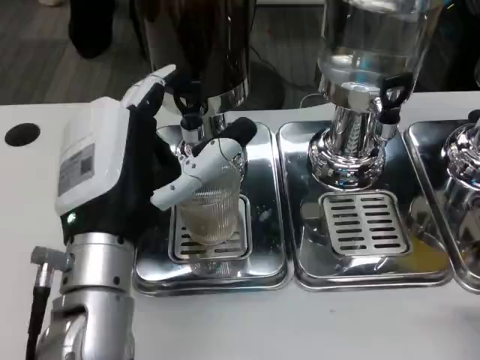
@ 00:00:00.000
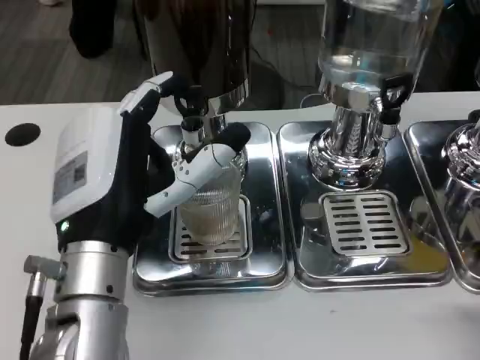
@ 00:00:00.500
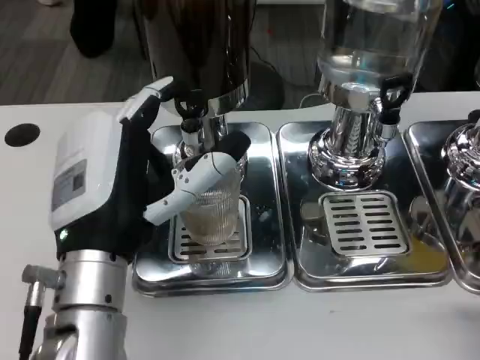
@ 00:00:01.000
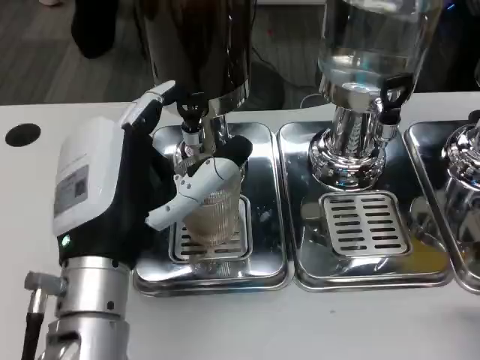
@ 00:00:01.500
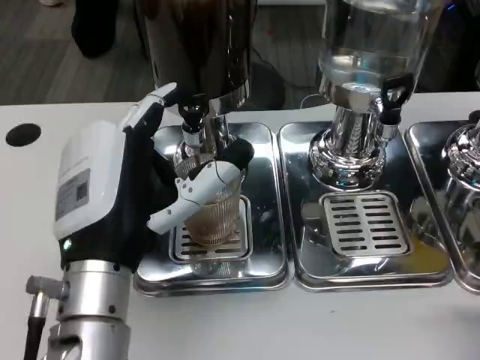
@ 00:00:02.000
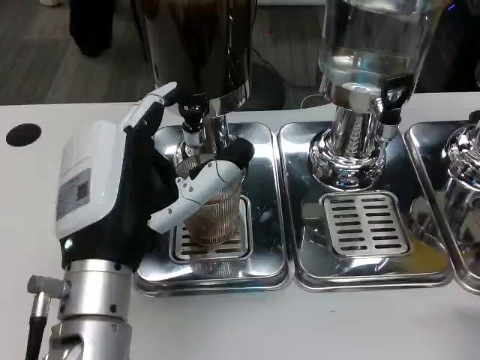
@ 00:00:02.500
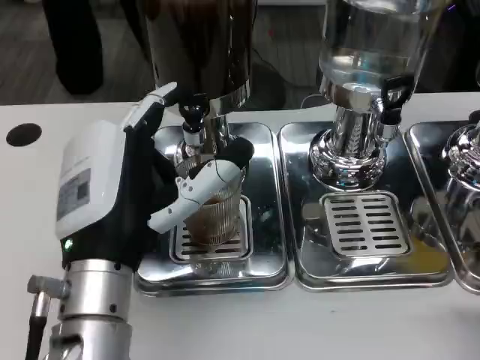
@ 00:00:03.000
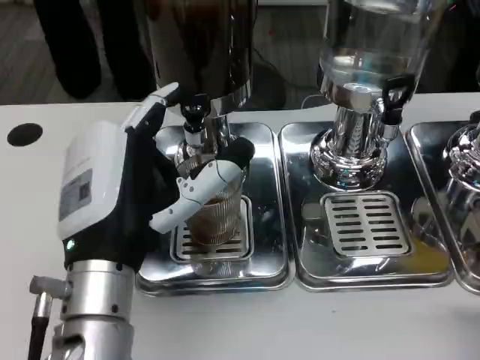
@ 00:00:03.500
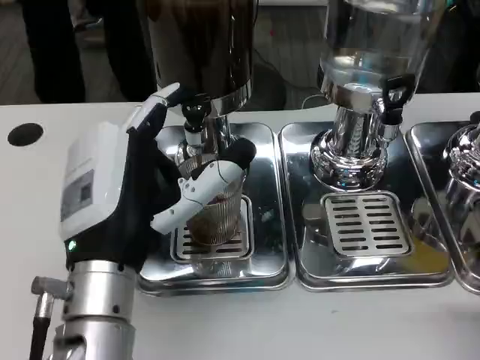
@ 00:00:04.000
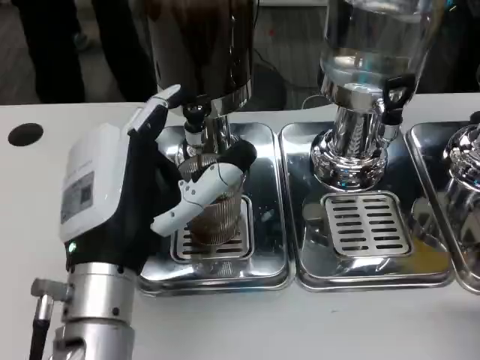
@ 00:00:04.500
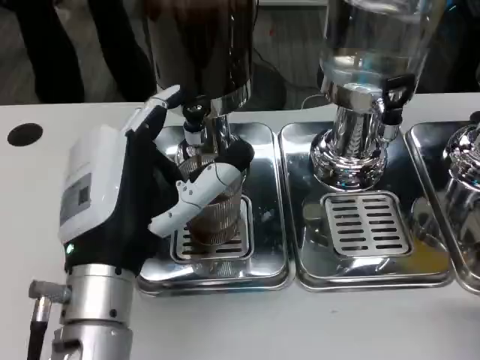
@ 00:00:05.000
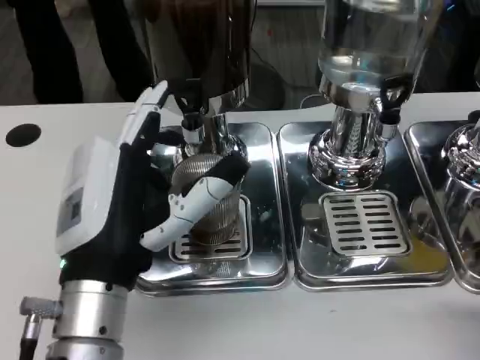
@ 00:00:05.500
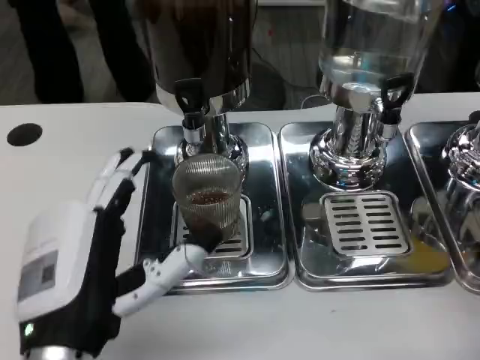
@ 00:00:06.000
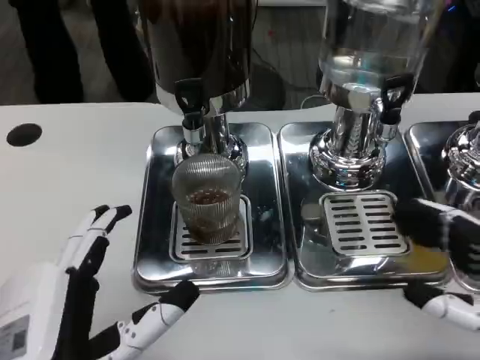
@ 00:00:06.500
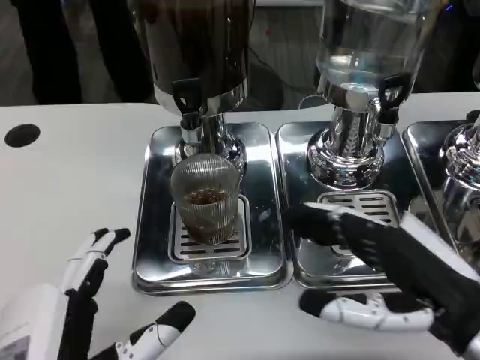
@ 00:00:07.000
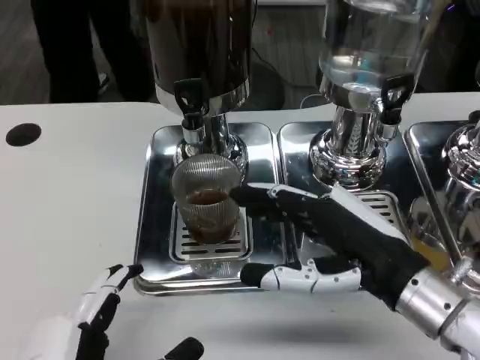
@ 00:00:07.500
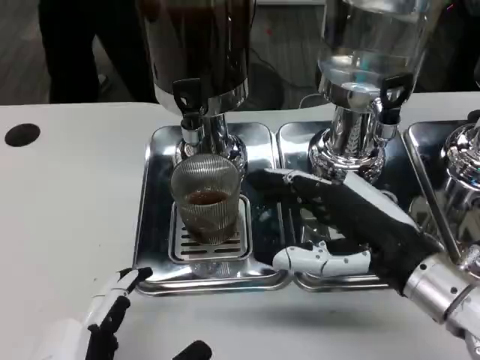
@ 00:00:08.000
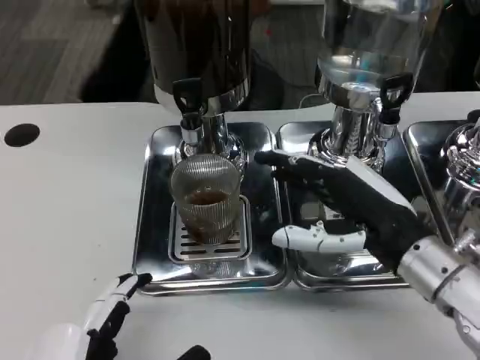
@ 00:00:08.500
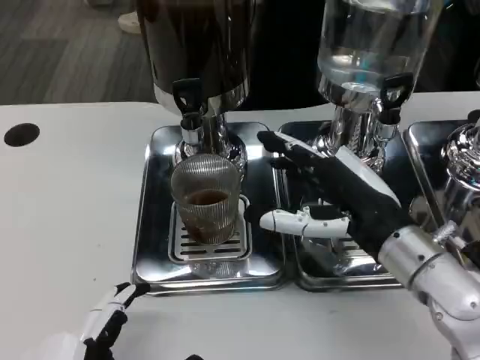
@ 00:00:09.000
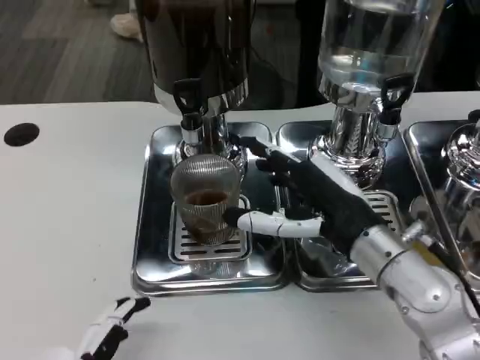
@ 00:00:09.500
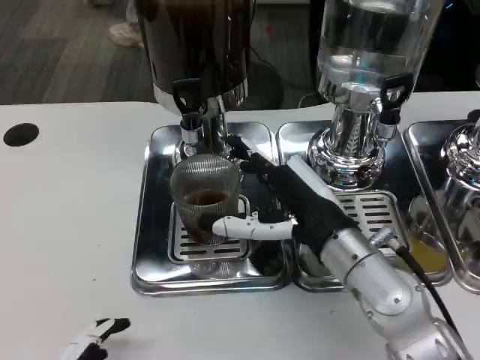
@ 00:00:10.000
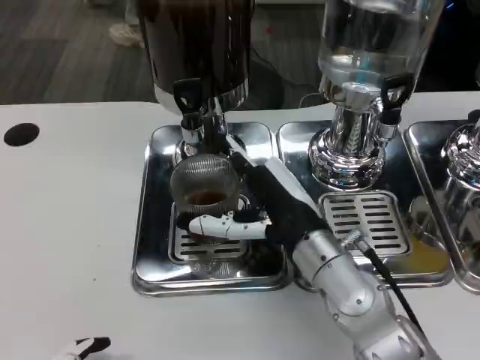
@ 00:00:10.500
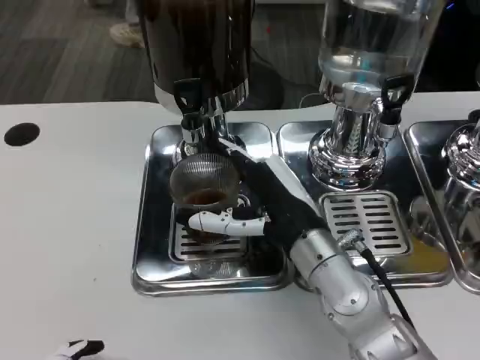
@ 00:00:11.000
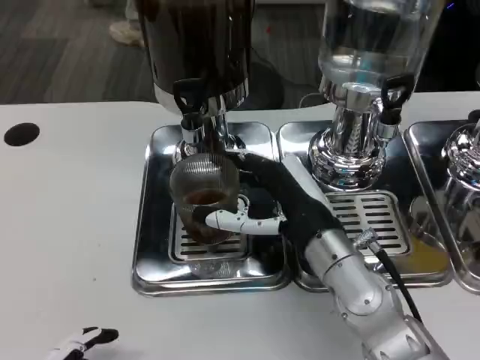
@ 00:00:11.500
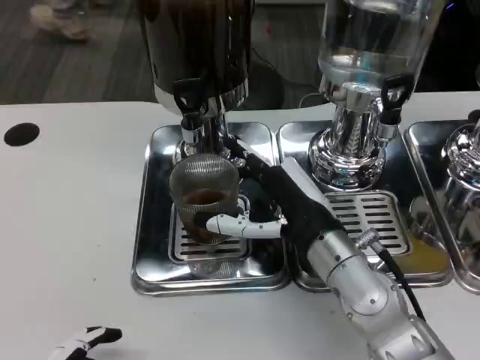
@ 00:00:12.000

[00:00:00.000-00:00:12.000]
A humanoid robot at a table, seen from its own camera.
Task of the whole recording: Grasp the cup under the faucet to collect the drink, then remove the cup.
00:00:00.000 to 00:00:02.000: The hands stay close to where they were, moving slightly.
00:00:02.000 to 00:00:04.000: Both hands stay put.
00:00:04.000 to 00:00:06.000: The left hand shifts about 5 cm backward; the right hand moves forward, about 5 cm.
00:00:06.000 to 00:00:08.000: The right hand goes roughly 20 cm to the left and forward, while the left hand goes roughly 5 cm backward.
00:00:08.000 to 00:00:10.000: The right hand is displaced to the left by about 5 cm.
00:00:10.000 to 00:00:12.000: The hands make only small movements.

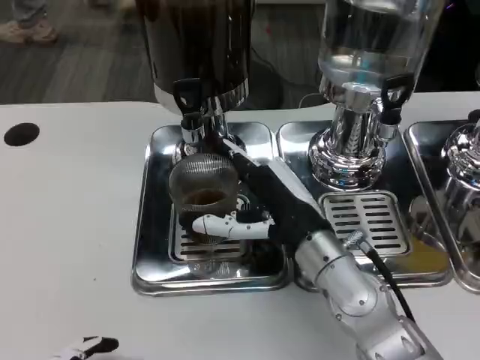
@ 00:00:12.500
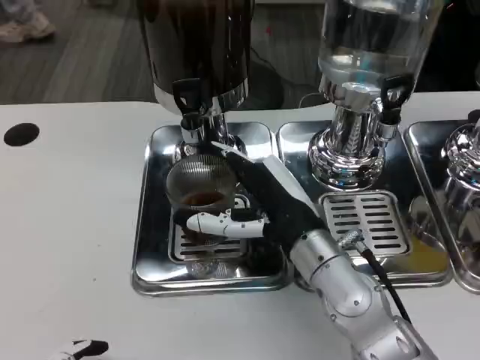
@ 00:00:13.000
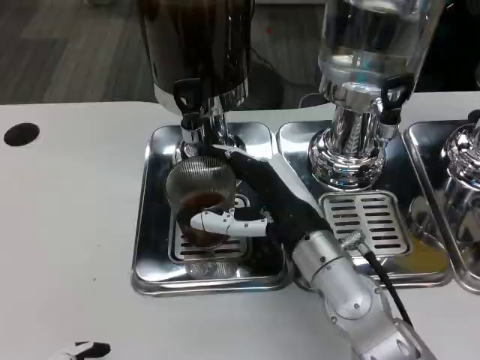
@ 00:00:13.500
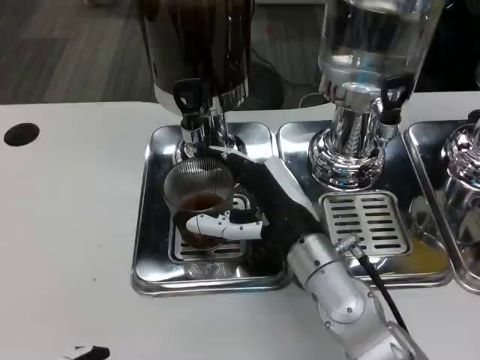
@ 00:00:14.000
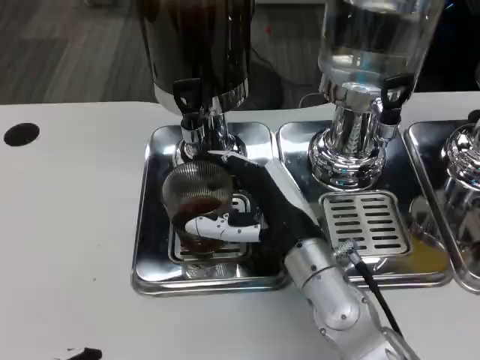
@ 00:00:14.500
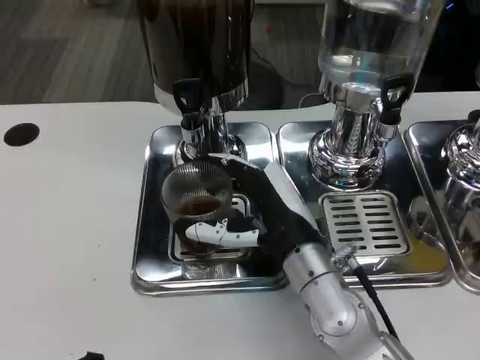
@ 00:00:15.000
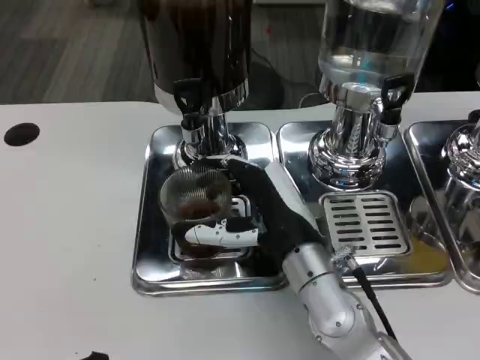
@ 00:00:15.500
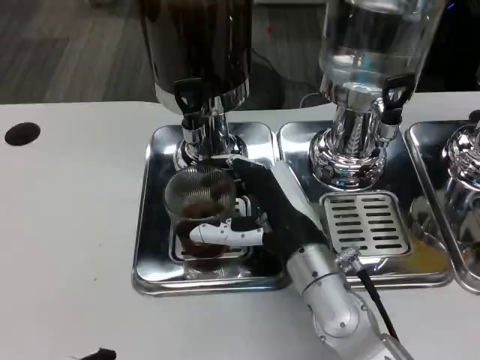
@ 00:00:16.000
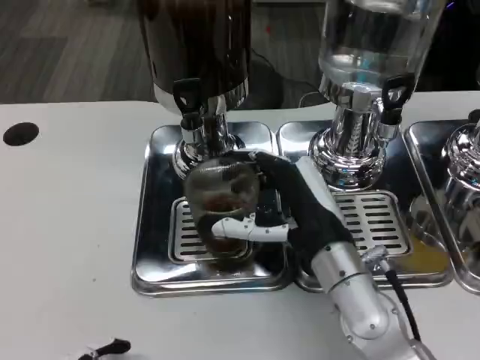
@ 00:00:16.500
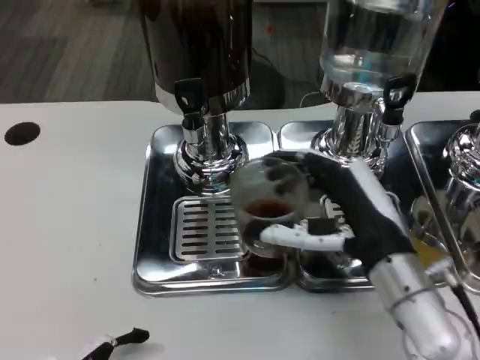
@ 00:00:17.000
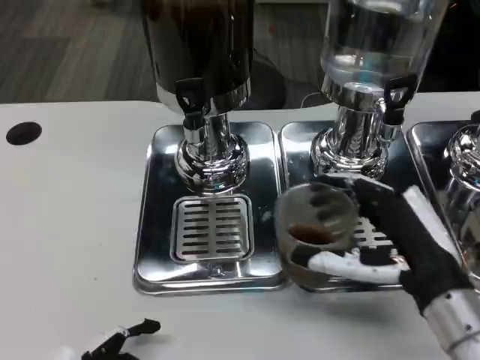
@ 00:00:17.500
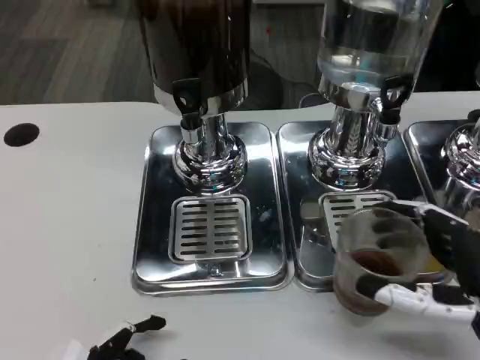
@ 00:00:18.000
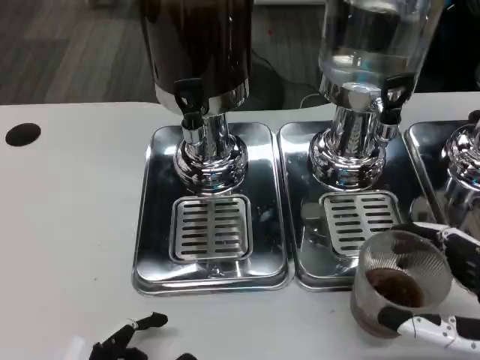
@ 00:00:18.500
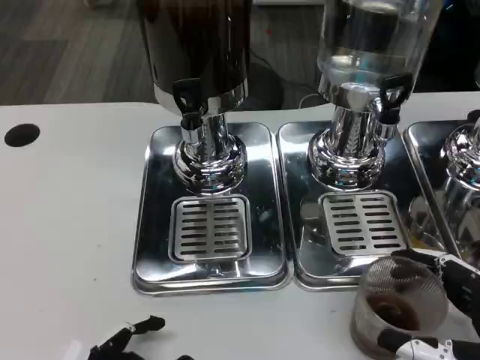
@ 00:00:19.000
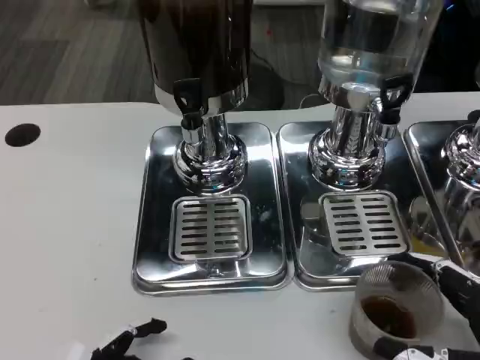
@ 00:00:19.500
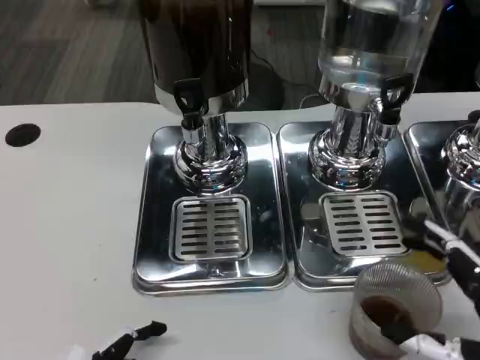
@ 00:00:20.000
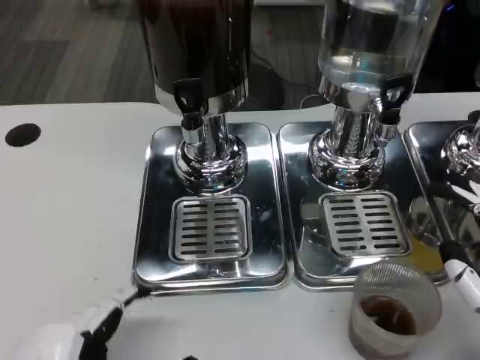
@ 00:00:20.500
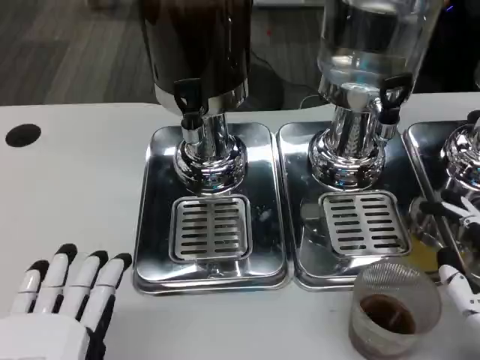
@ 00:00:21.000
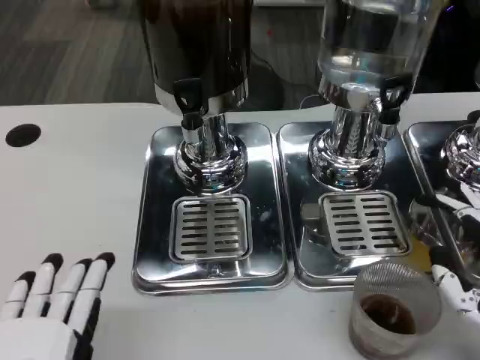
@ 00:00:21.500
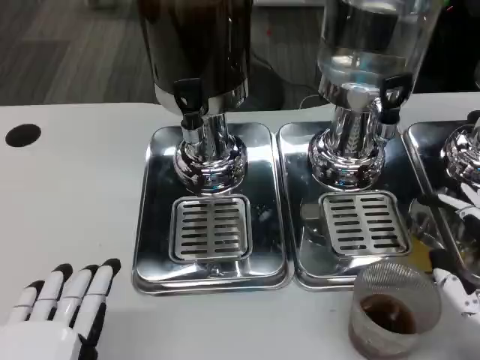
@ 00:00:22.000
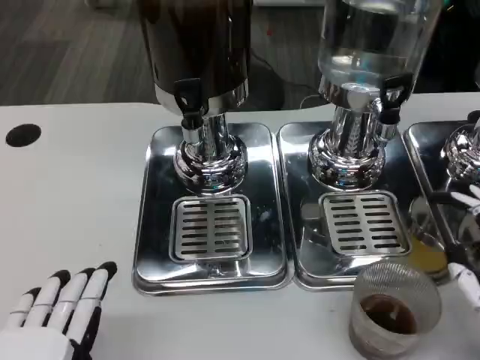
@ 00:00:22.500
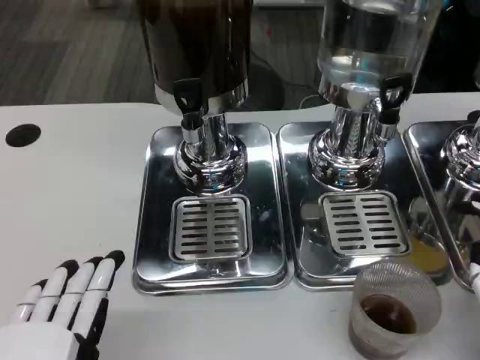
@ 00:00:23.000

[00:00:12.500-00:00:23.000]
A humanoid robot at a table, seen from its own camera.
Task of the whole recording: Grasp the cup under the faucet to collect the drink, then remove the cup.
00:00:12.500 to 00:00:16.500: The hands stay close to where they were, moving slightly.
00:00:16.500 to 00:00:19.000: The right hand shifts some 20 cm to the right and backward.
00:00:19.000 to 00:00:21.000: The left hand moves approximately 5 cm.
00:00:21.000 to 00:00:23.000: The hands stay close to where they were, moving slightly.
